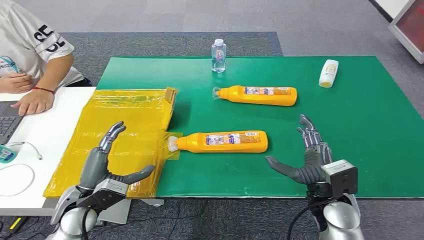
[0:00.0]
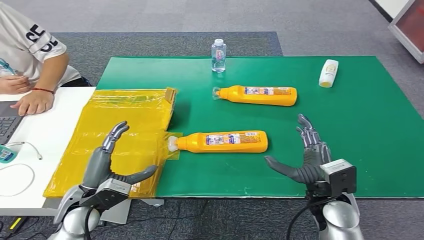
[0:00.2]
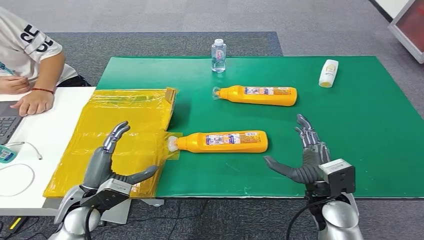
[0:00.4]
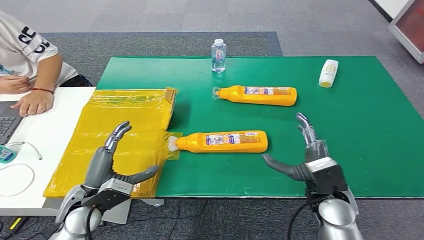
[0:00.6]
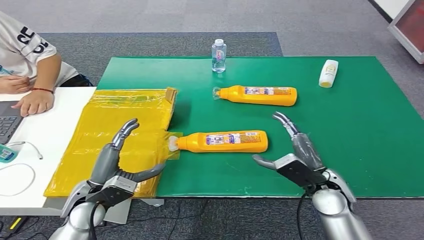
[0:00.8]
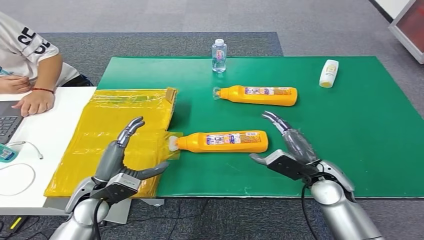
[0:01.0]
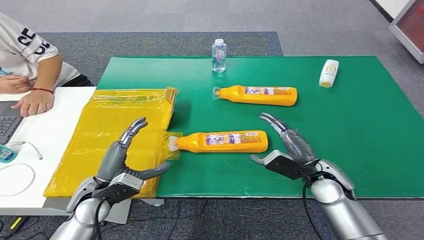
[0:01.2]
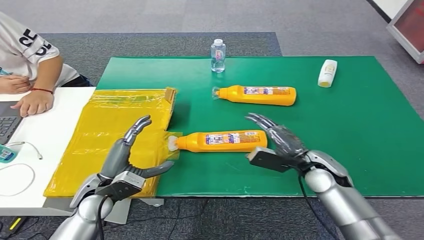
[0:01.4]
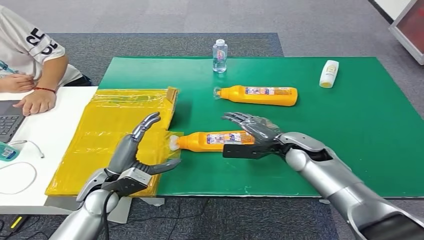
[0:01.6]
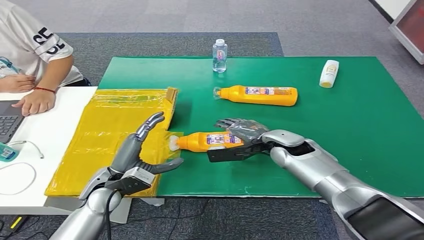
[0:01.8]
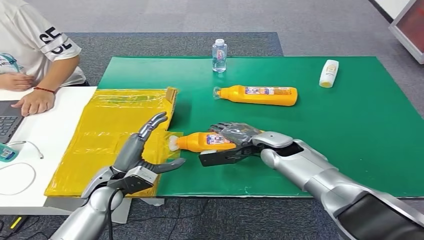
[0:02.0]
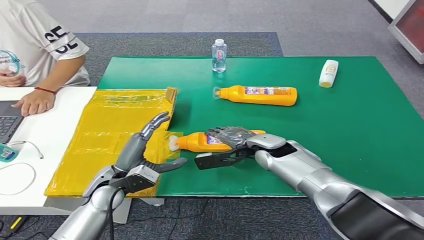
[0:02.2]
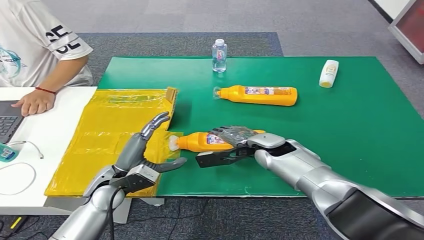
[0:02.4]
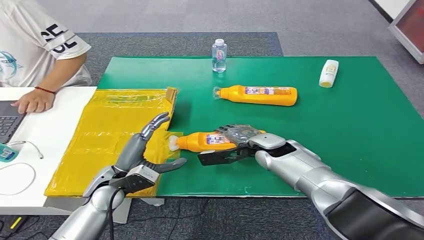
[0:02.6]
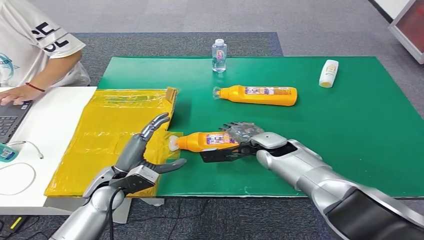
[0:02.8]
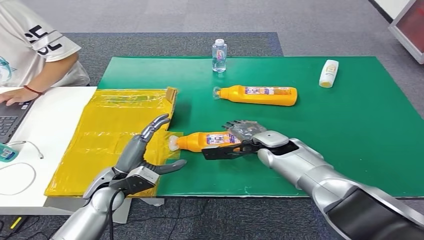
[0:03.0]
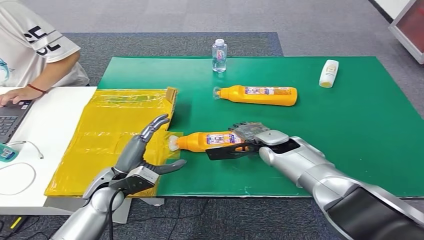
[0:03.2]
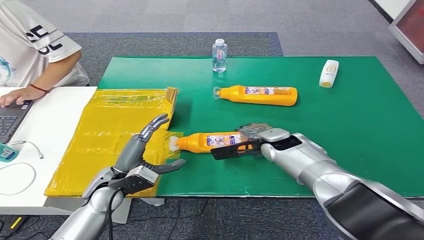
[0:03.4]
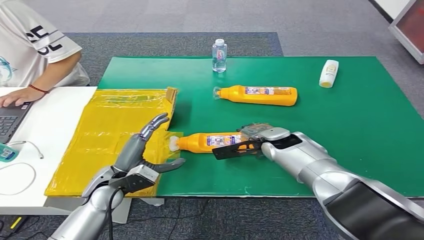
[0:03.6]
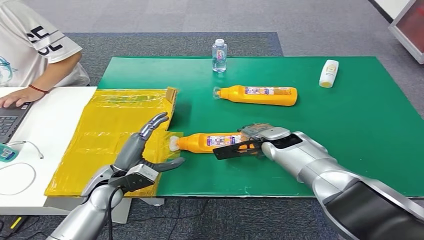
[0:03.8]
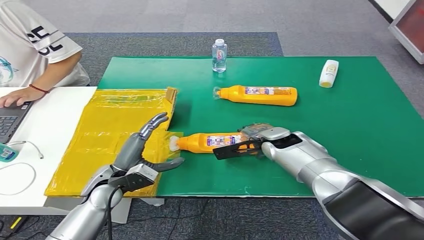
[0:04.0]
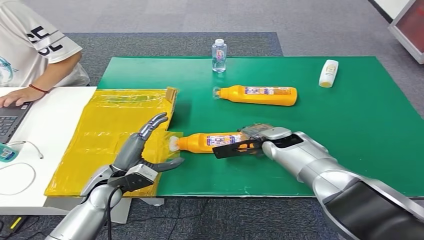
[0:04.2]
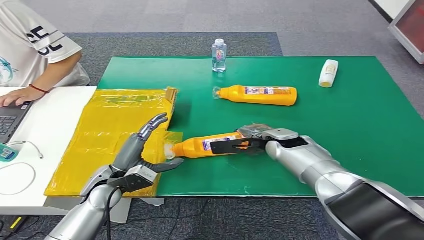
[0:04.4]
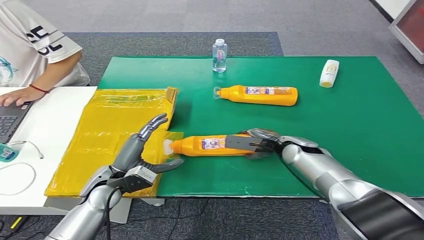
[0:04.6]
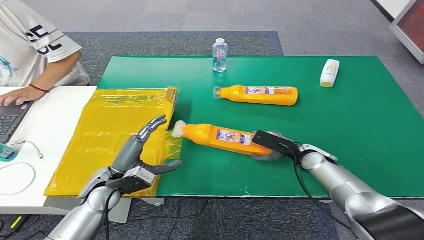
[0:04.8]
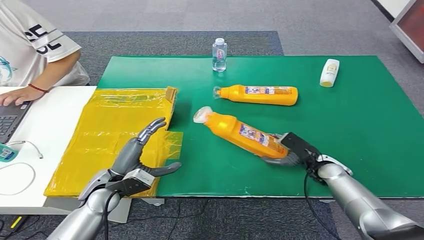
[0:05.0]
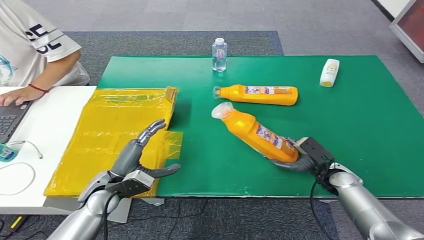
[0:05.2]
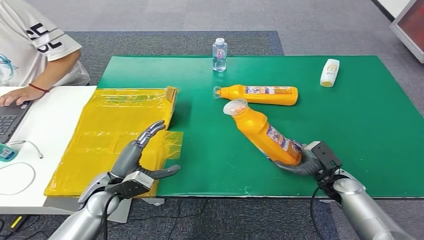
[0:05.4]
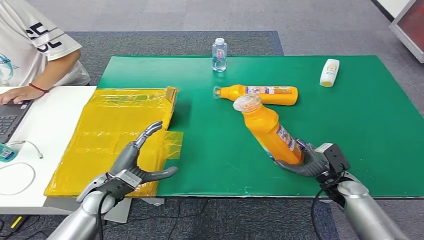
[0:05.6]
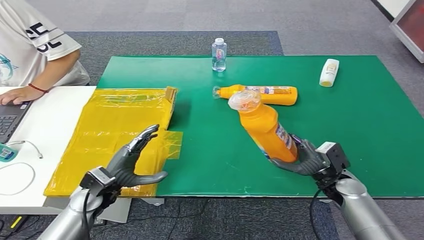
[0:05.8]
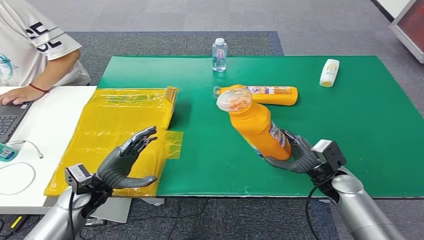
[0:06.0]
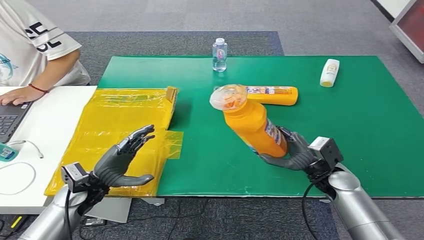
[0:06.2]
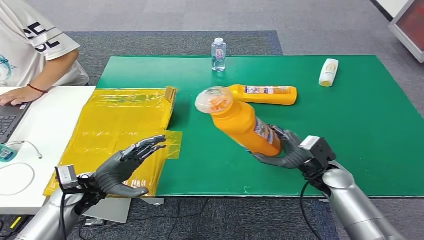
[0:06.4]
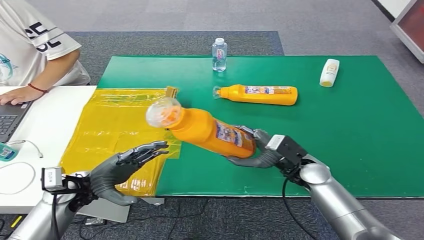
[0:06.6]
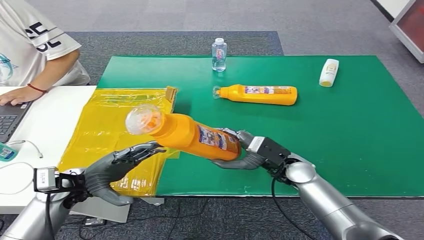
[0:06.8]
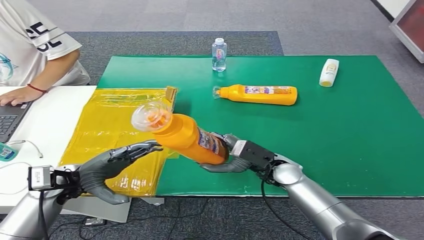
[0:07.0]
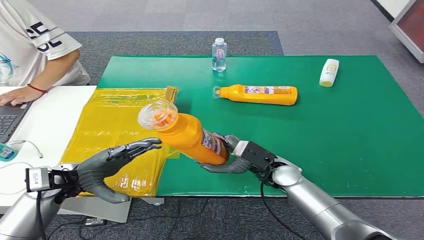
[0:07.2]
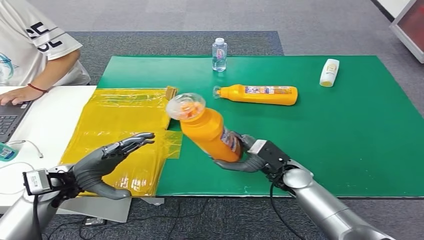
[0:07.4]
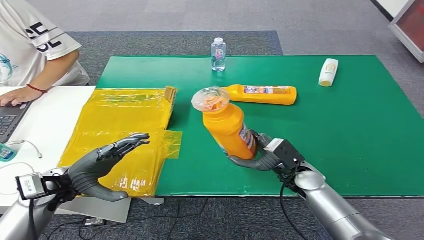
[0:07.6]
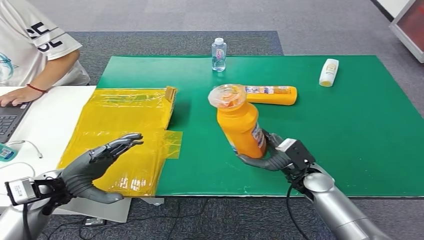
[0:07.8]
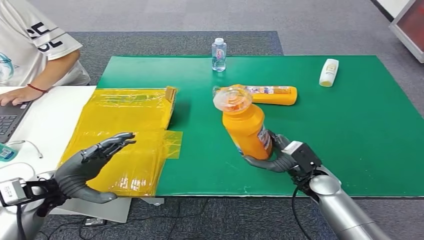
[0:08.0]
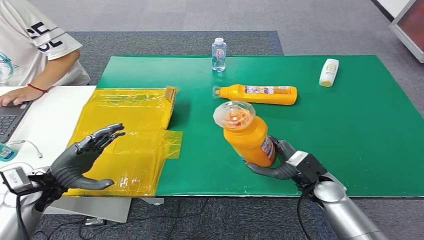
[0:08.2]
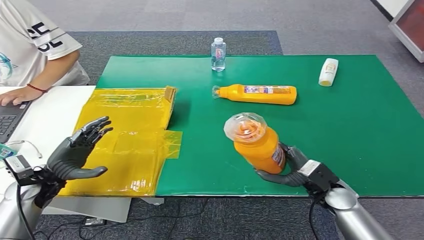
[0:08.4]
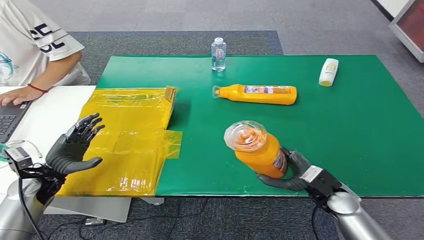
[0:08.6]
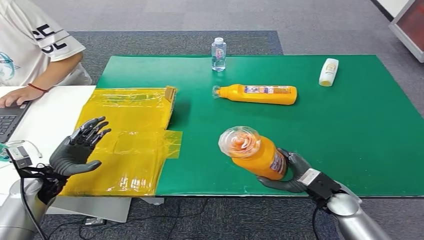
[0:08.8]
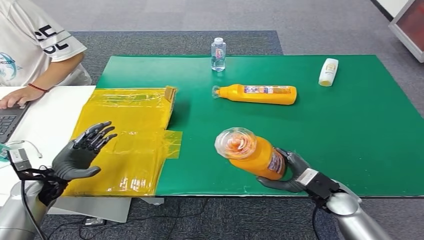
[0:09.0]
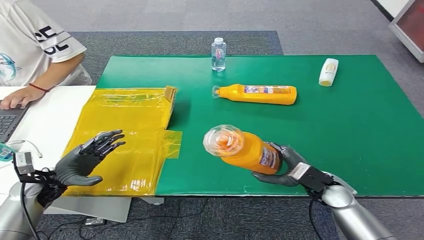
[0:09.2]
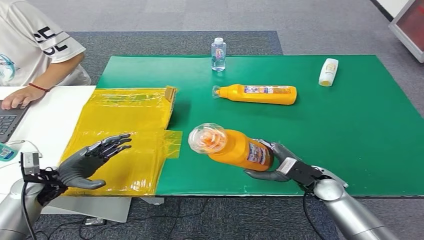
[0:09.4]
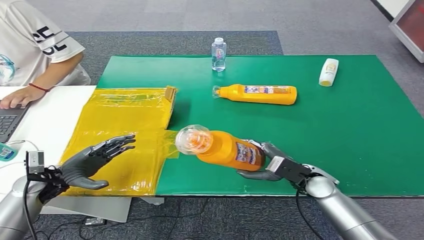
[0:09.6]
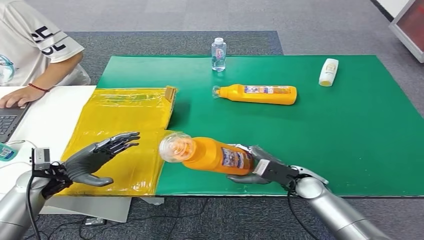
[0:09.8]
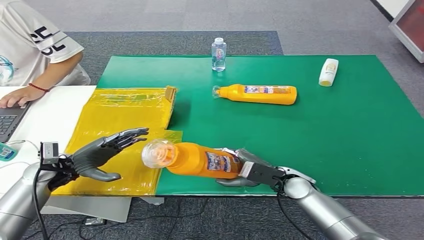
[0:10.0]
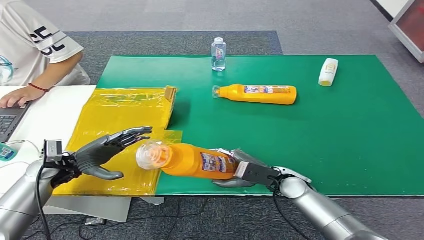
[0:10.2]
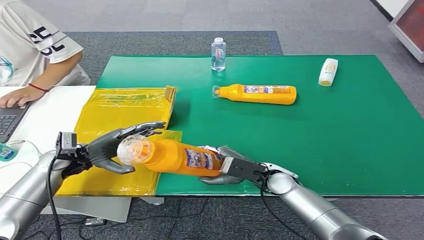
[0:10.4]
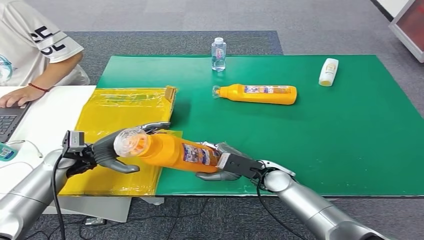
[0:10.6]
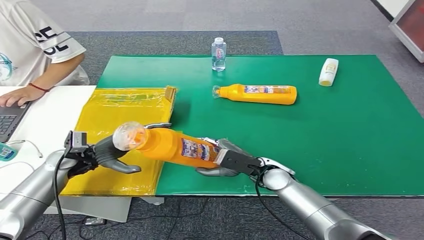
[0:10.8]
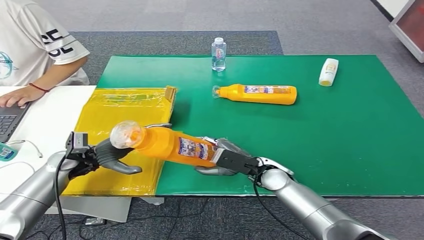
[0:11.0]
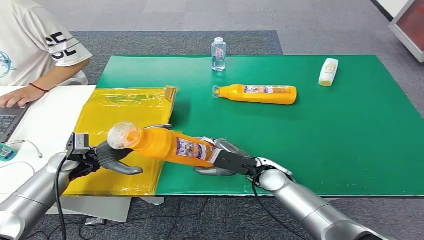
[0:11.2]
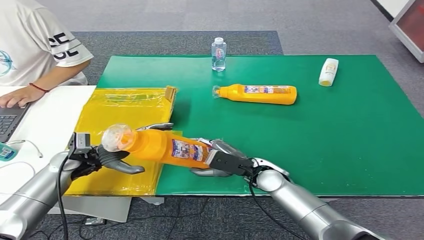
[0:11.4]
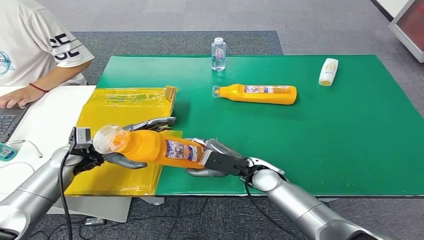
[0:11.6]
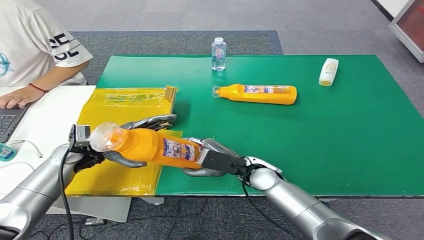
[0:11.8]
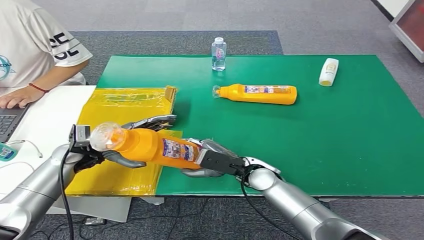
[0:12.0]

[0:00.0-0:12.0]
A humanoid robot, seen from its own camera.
Step, 0:00.0 to 0:09.0: Pick up the bottle from the table.
0:01.6 to 0:03.0: The right hand shifts some 5 cm to the left.
0:03.0 to 0:04.4: The hands make only small movements.
0:06.0 to 0:07.6: The right hand is displaced to the left by roughly 10 cm. The left hand moves upward, approximately 5 cm.
0:07.6 to 0:09.0: The left hand goes roughly 10 cm to the left and downward. The right hand heads to the right and backward, covering approximately 10 cm.
0:09.0 to 0:10.4: The left hand goes some 10 cm forward, to the right and upward. The right hand goes about 10 cm to the left.
0:10.4 to 0:12.0: The right hand ends up roughly 5 cm from where it was.

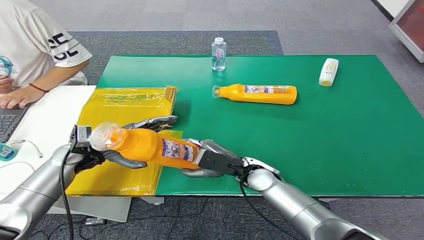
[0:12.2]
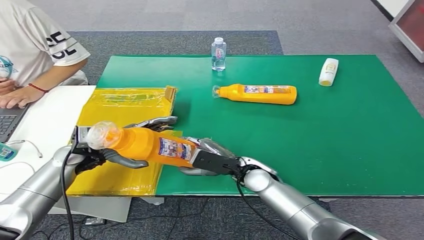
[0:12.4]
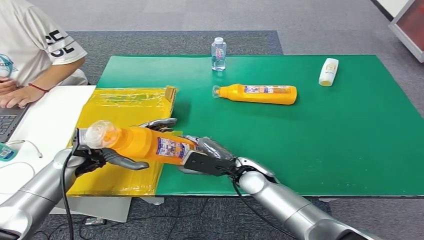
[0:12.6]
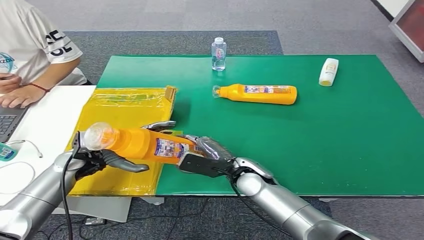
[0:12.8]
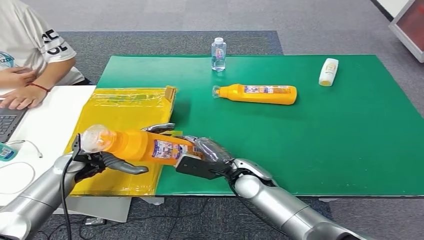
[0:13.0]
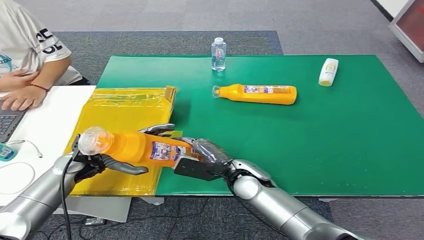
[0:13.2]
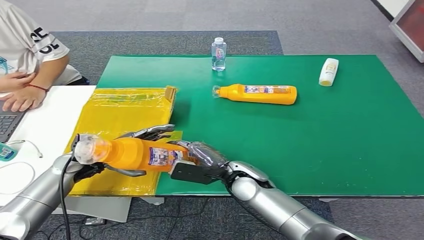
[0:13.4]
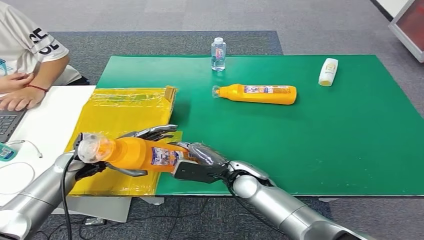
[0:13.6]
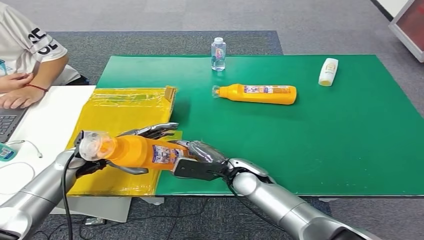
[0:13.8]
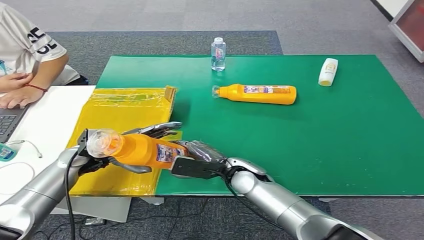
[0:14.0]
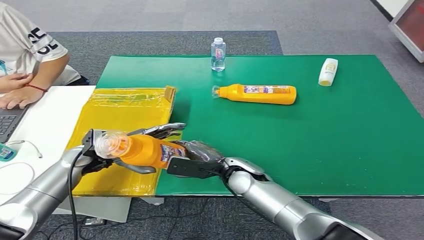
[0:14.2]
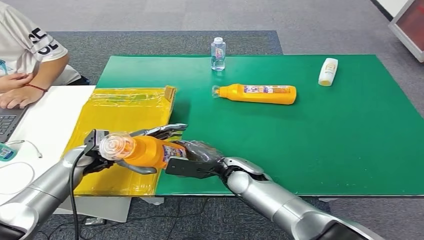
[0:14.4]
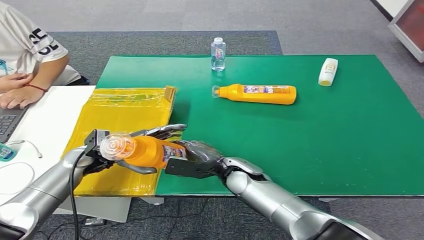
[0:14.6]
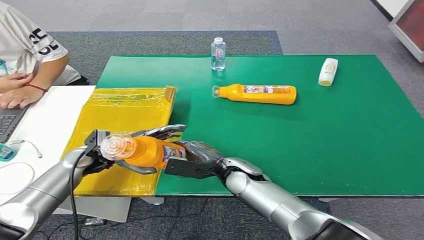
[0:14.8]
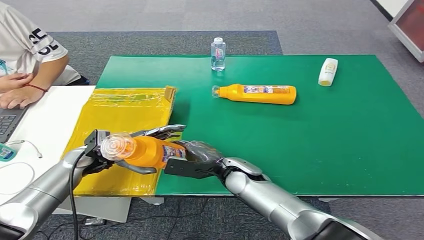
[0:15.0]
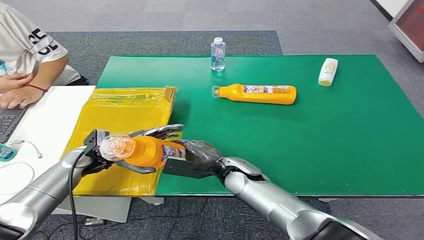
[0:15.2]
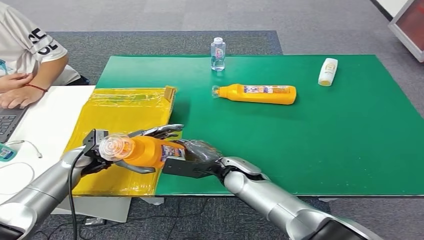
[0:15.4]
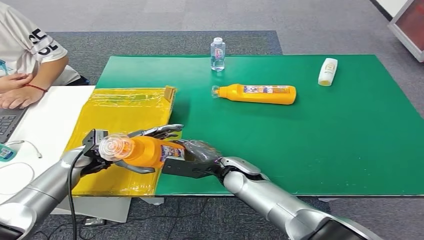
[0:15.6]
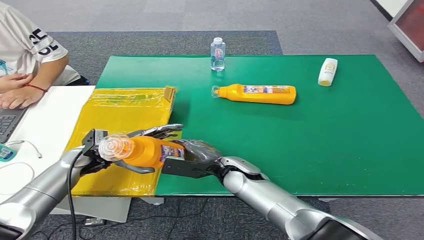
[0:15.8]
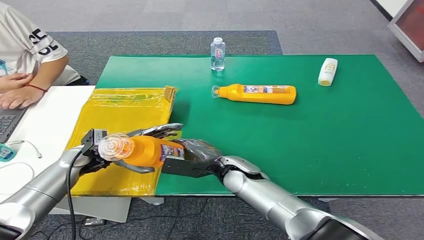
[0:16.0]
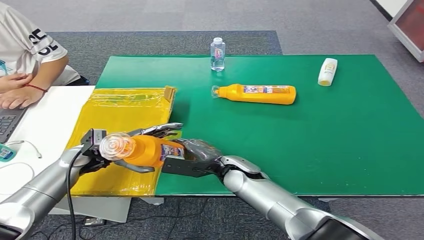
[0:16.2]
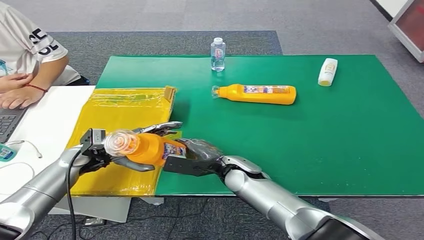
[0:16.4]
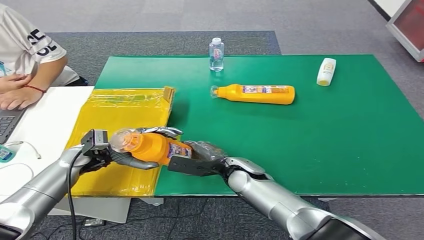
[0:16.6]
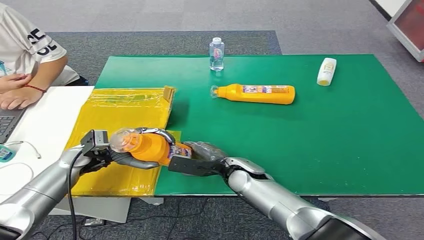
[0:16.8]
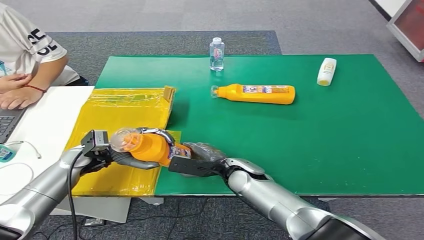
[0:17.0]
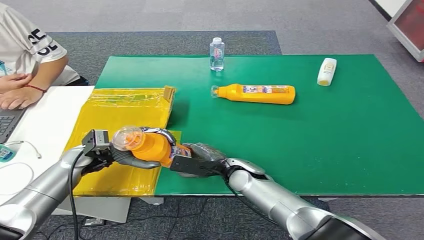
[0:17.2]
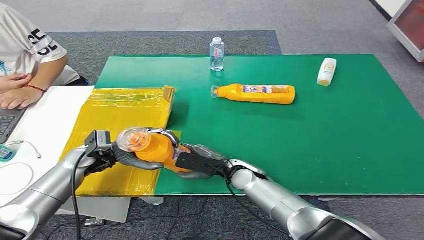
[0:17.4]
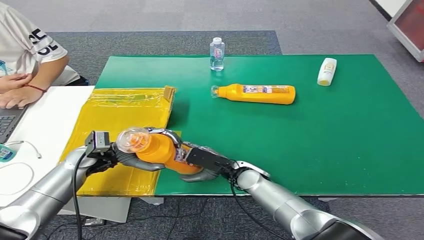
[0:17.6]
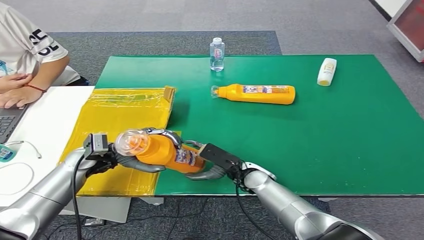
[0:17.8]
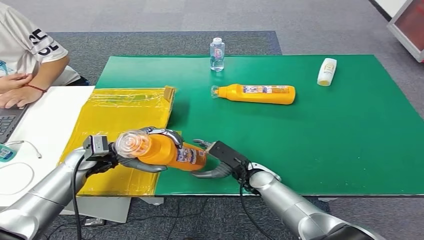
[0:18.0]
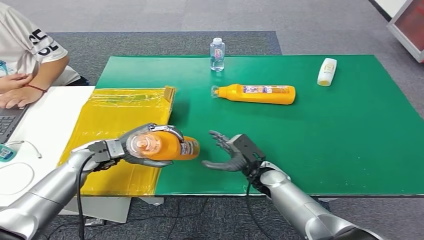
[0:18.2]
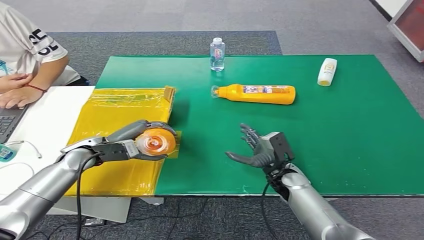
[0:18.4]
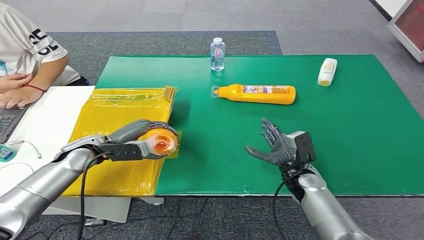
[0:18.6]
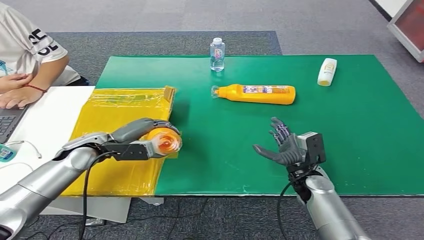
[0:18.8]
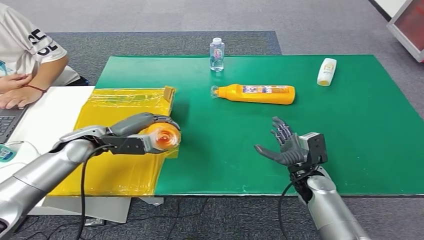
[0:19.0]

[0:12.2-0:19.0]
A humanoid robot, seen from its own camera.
0:12.2 to 0:13.6: The hands make only small movements.
0:13.6 to 0:15.0: The hands move only a little.
0:15.0 to 0:16.2: Both hands stay put.
0:17.6 to 0:19.0: The left hand shifts by some 5 cm. Meanwhile the right hand travels to the right by about 15 cm.
